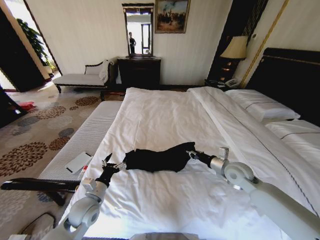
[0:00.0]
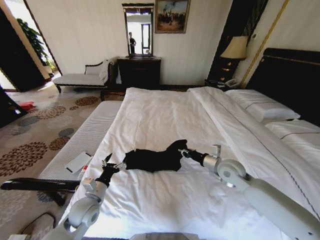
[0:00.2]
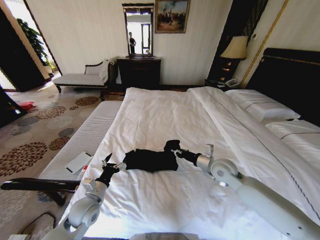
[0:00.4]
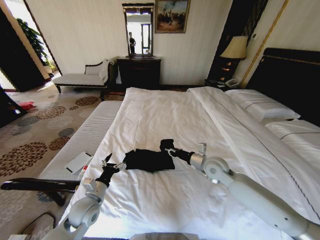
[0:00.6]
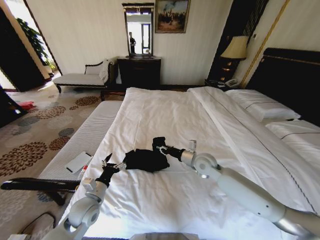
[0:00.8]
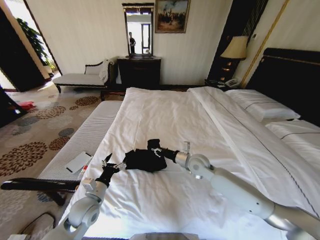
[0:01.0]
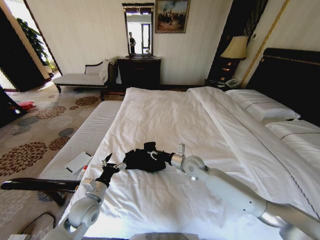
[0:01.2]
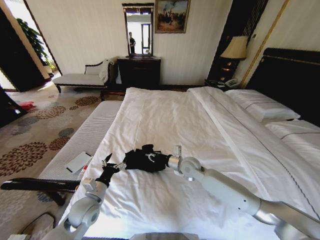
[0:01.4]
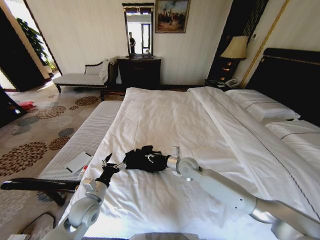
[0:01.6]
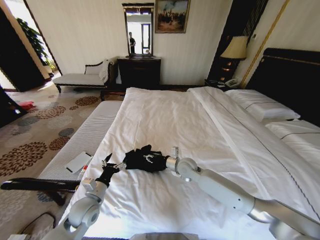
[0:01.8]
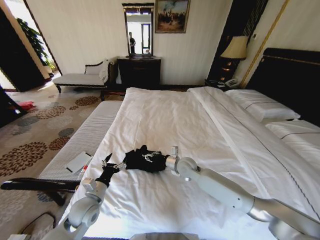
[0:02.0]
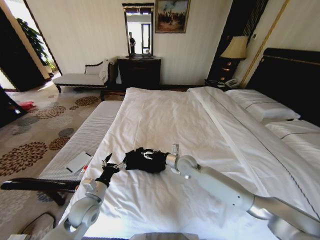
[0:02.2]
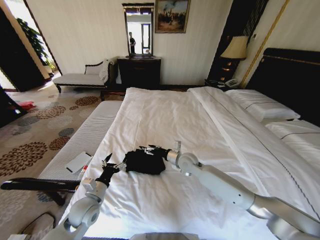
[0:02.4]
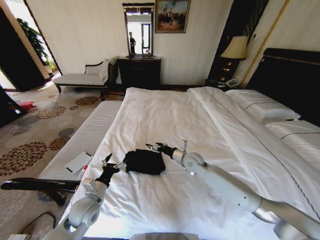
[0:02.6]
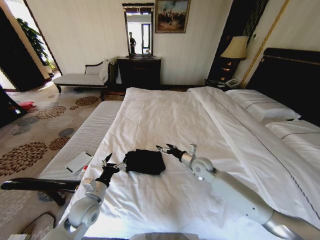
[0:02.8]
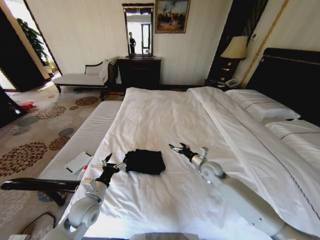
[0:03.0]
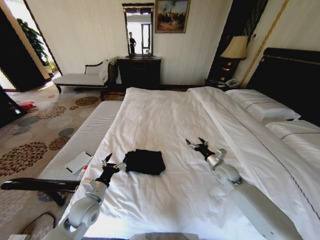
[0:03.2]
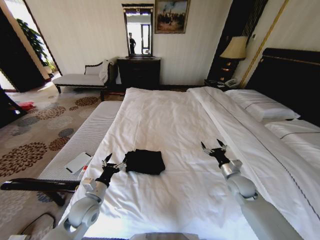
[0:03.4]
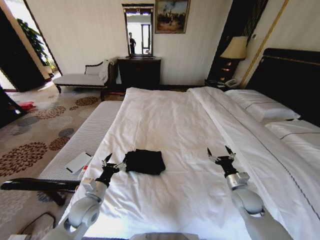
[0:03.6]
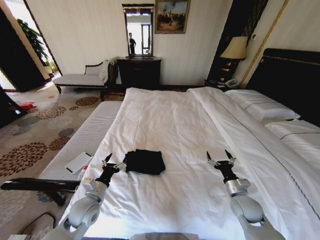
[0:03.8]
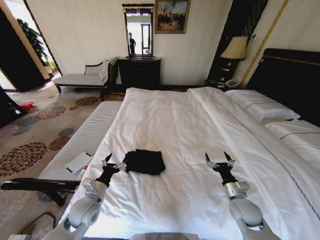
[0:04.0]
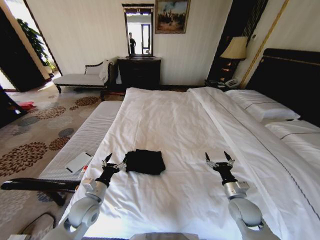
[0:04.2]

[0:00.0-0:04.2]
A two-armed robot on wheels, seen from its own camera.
Task of the whole recording: Fold the clothes on the bed.
0:00.0 to 0:01.4: The right gripper goes some 15 cm to the left.
0:01.4 to 0:02.8: The right gripper is displaced to the right by about 5 cm, and opens its fingers.
0:02.8 to 0:04.2: The right gripper heads backward and to the right, covering about 20 cm.
